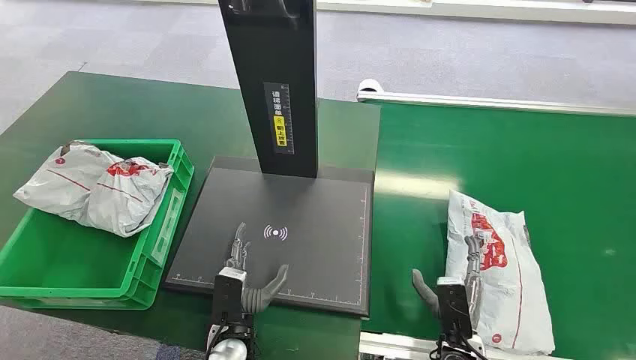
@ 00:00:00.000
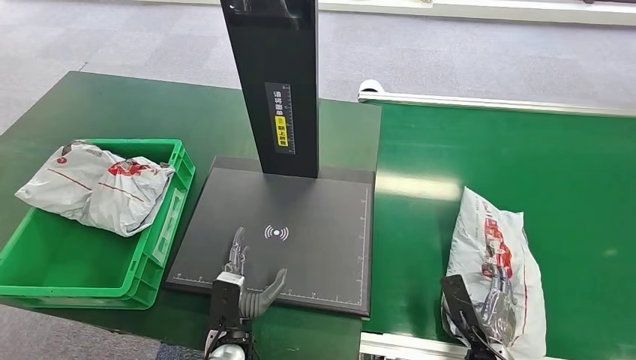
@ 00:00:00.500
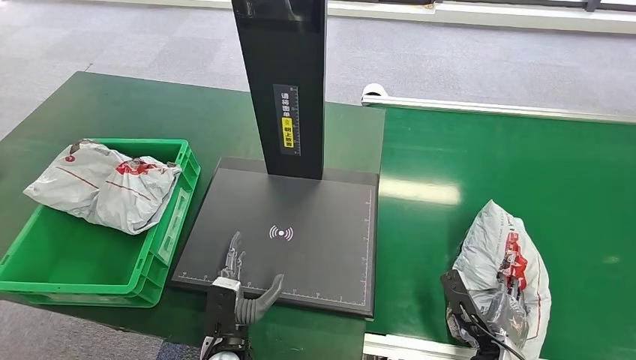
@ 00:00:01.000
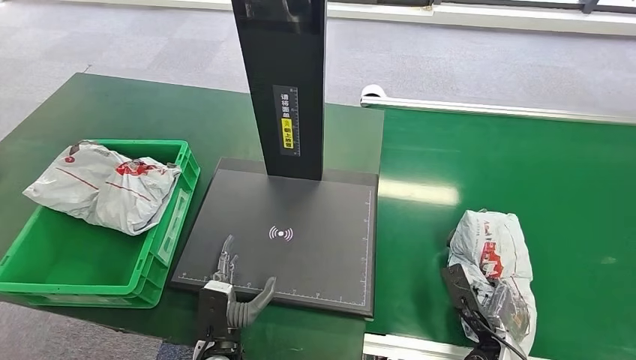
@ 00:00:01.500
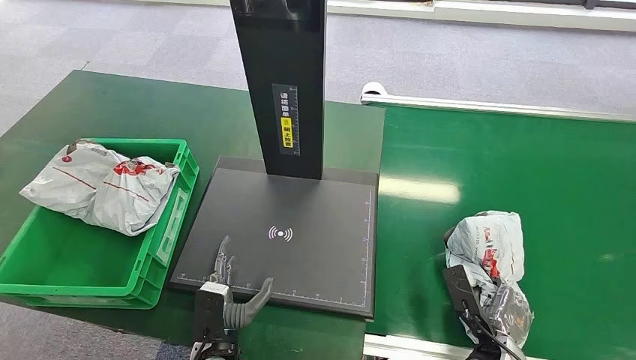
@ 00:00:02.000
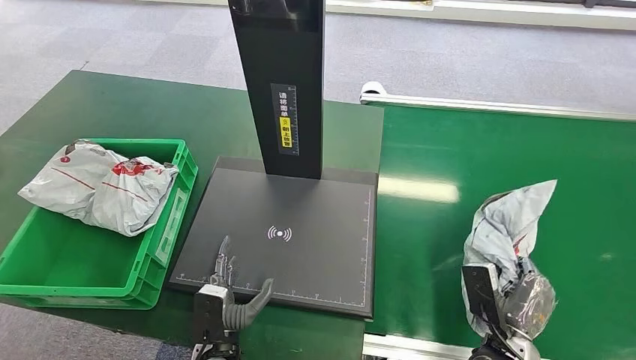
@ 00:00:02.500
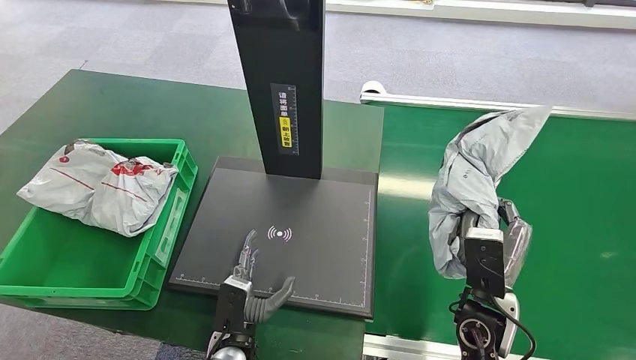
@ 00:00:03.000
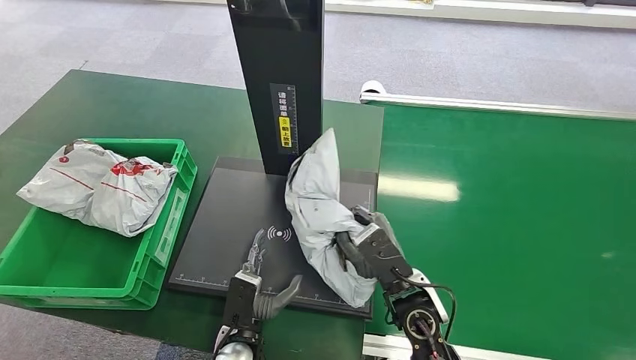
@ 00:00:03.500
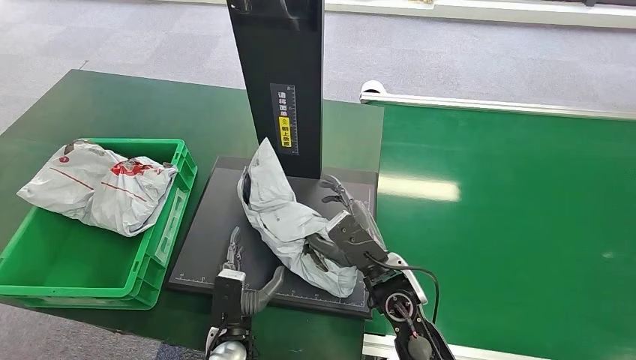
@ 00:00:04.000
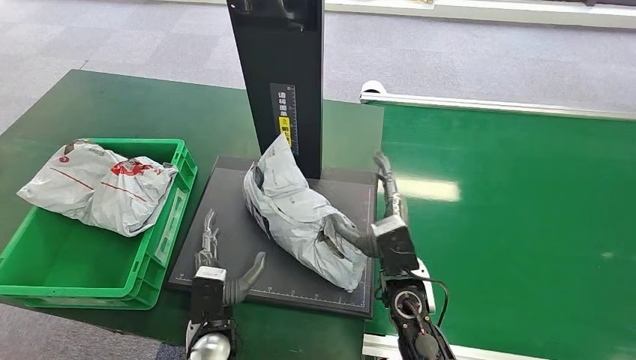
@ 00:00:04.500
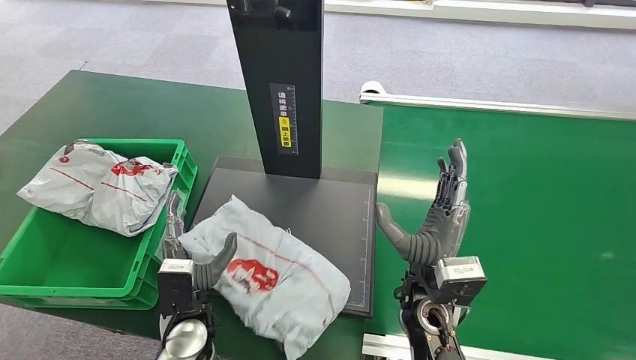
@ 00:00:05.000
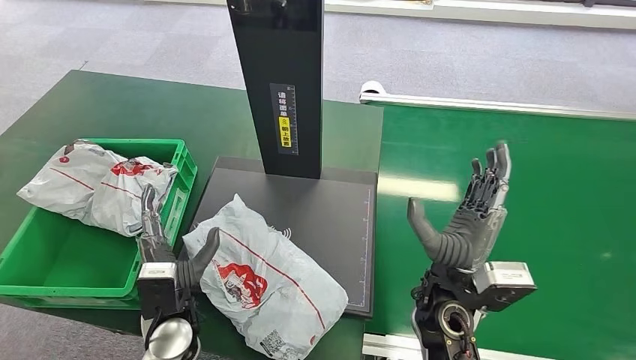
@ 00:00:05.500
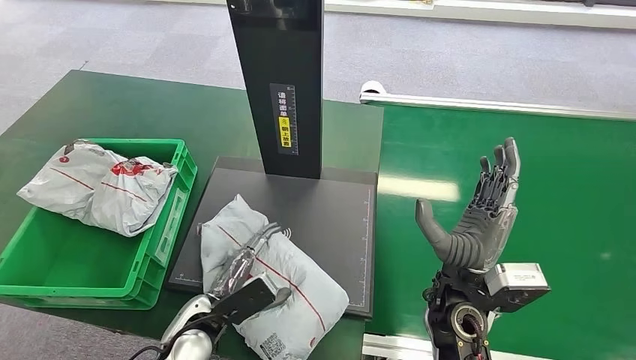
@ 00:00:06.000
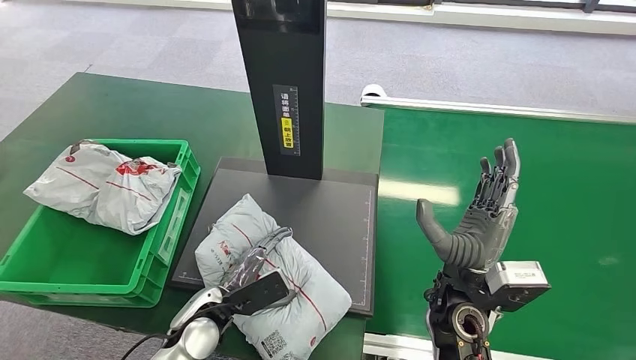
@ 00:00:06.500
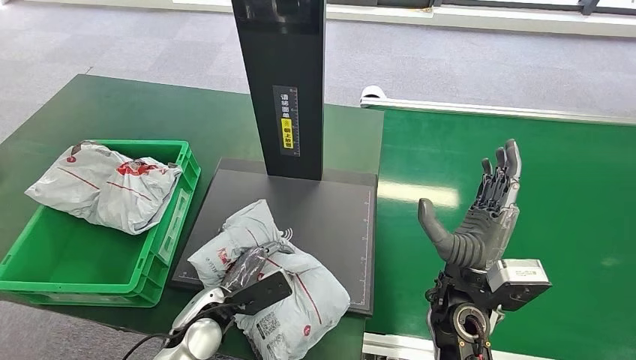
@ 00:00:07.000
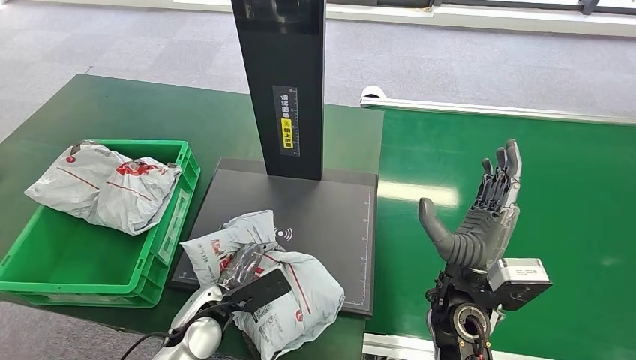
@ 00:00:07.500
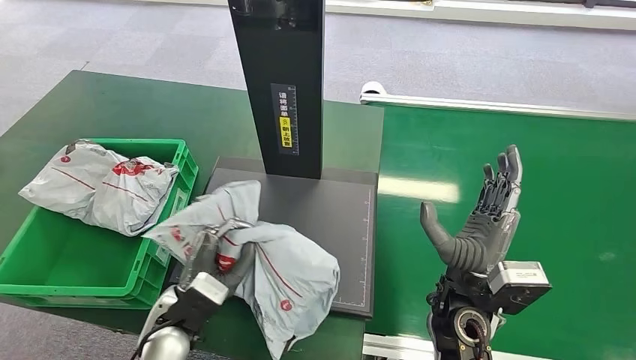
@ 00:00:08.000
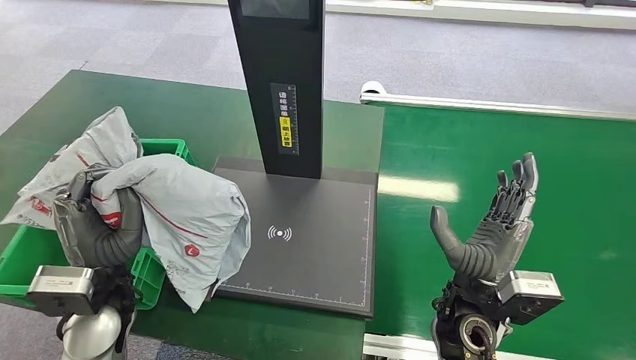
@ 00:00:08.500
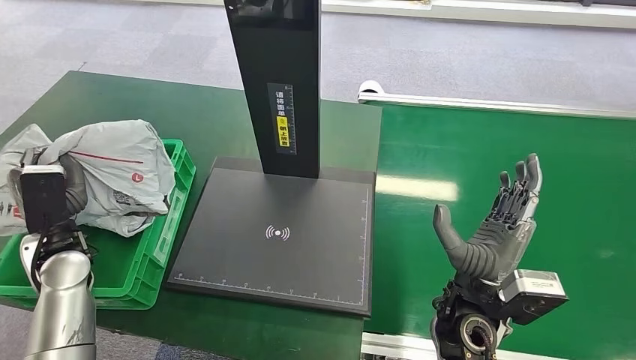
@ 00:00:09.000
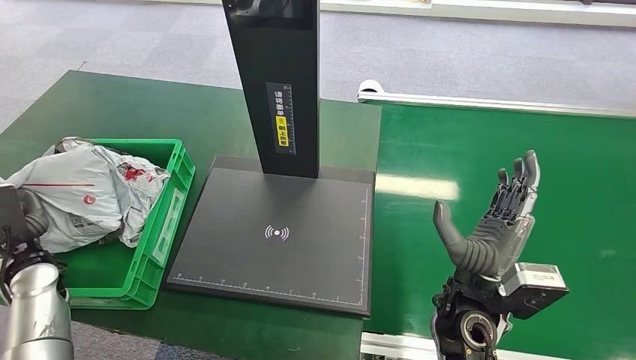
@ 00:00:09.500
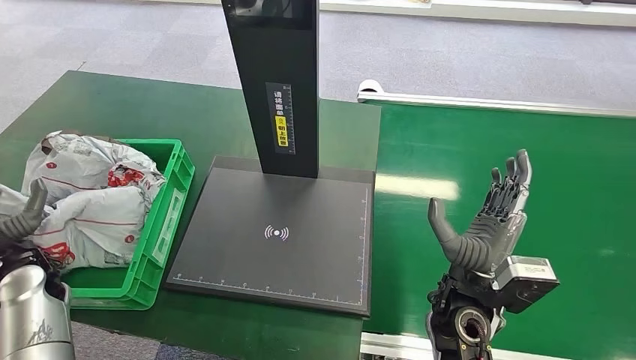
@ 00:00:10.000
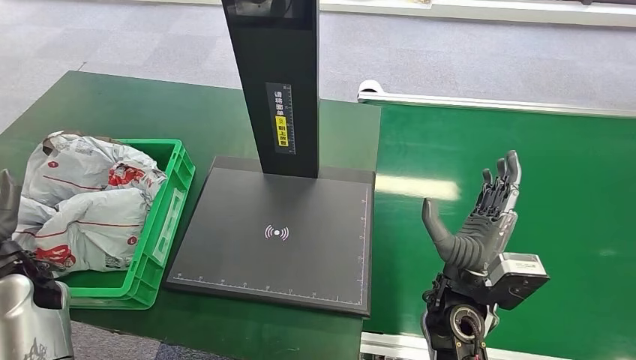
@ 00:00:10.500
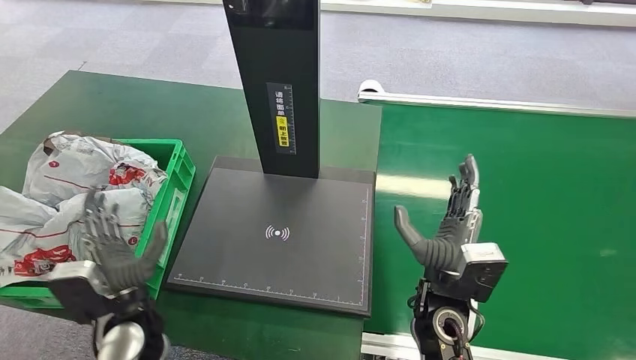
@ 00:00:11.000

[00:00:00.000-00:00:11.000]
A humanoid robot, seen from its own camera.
Step, 00:00:00.000 to 00:00:02.500: Pick up the package from the conveyor belt.
Step, 00:00:03.000 to 00:00:05.000: Place the package onto the inbound machine.
Step, 00:00:05.500 to 00:00:08.000: Pick up the package from the inbound machine.
Step, 00:00:08.500 to 00:00:11.000: Place the package into the parcel locker.
00:00:03.500 to 00:00:05.500: The left hand is displaced to the left and upward by approximately 10 cm, while the right hand shifts by approximately 5 cm.
